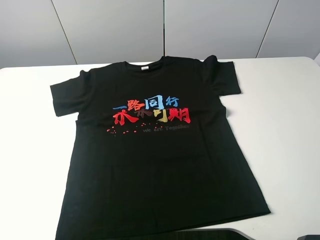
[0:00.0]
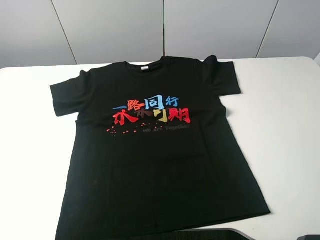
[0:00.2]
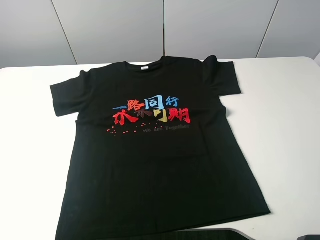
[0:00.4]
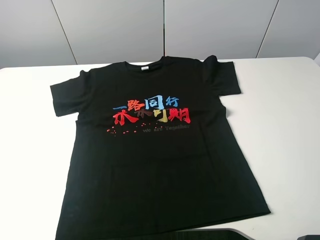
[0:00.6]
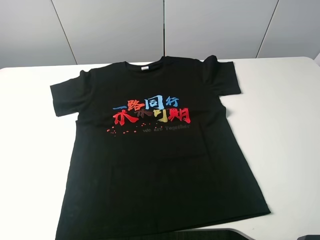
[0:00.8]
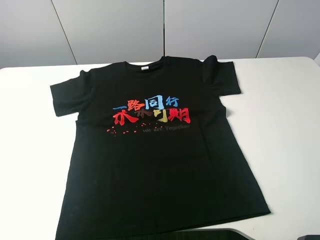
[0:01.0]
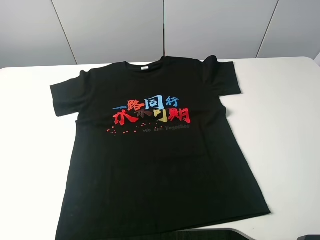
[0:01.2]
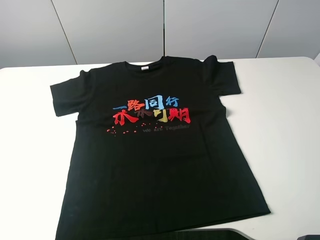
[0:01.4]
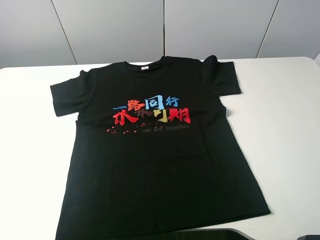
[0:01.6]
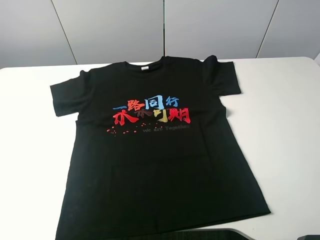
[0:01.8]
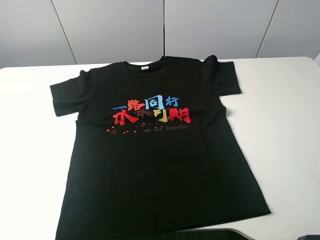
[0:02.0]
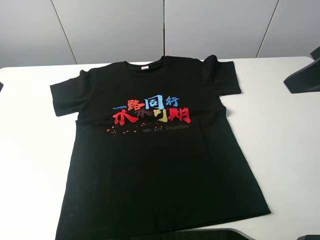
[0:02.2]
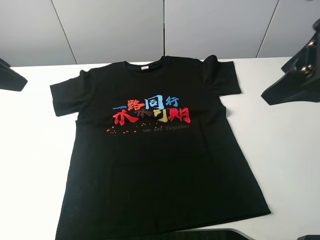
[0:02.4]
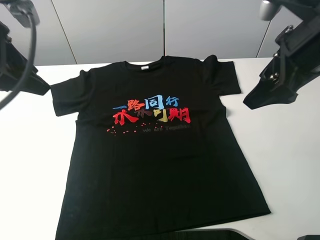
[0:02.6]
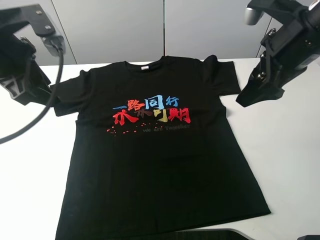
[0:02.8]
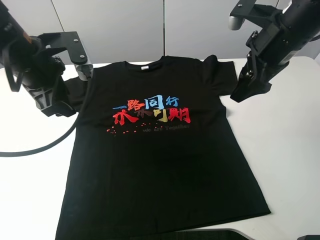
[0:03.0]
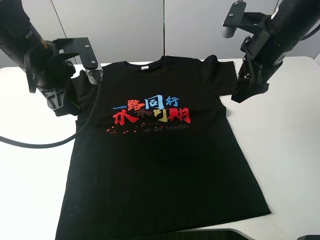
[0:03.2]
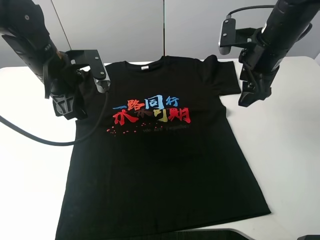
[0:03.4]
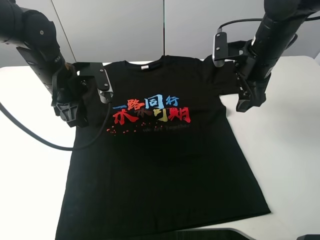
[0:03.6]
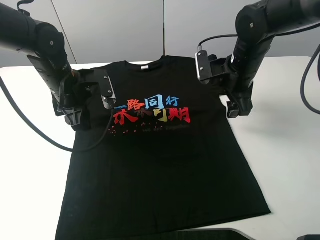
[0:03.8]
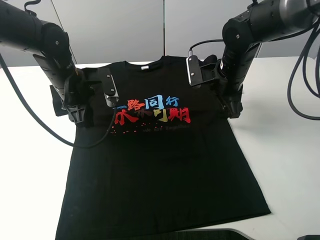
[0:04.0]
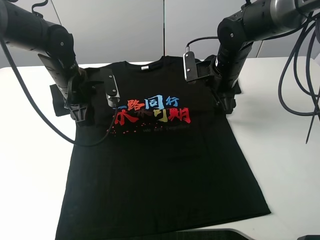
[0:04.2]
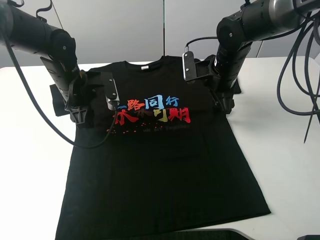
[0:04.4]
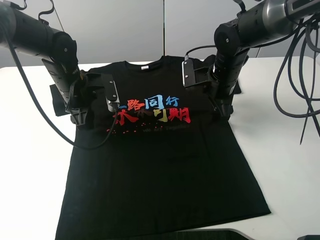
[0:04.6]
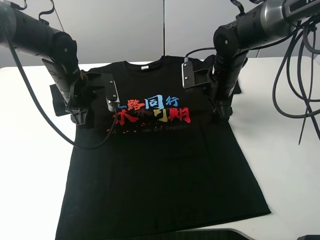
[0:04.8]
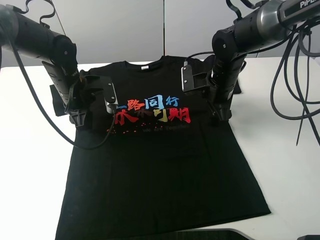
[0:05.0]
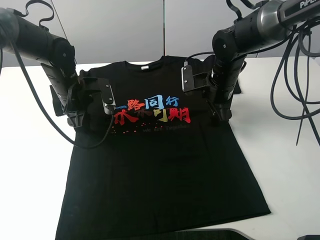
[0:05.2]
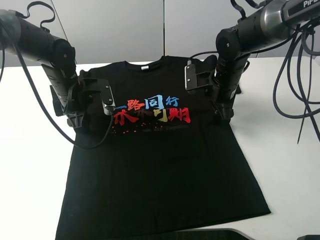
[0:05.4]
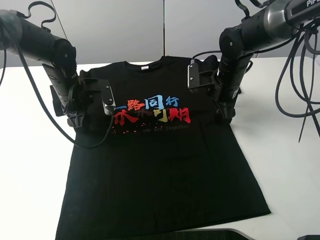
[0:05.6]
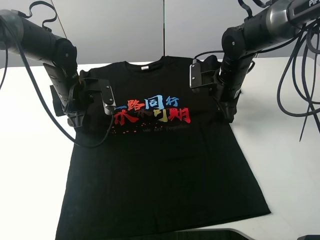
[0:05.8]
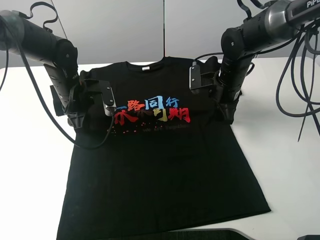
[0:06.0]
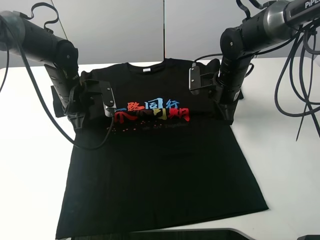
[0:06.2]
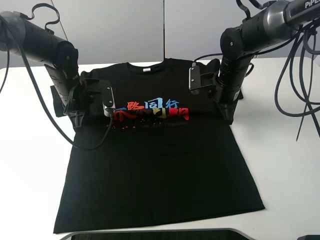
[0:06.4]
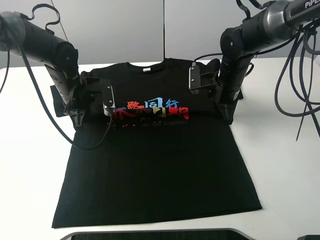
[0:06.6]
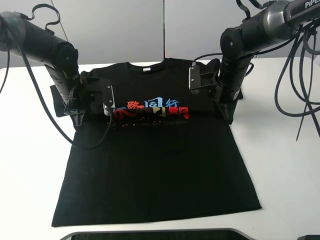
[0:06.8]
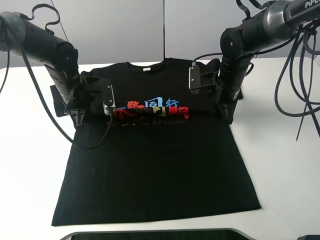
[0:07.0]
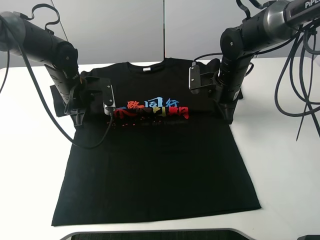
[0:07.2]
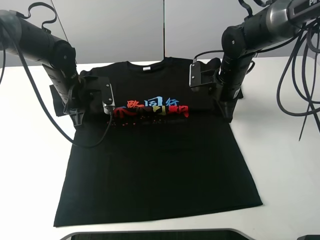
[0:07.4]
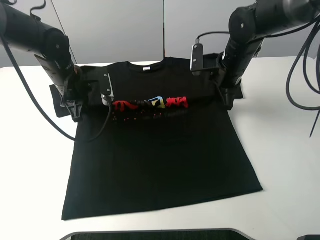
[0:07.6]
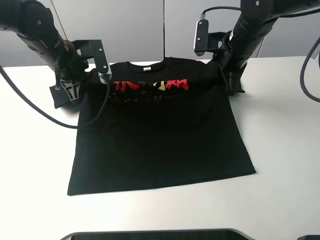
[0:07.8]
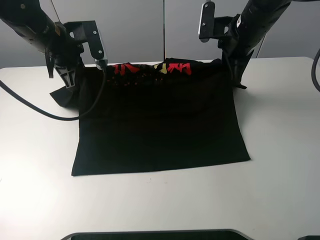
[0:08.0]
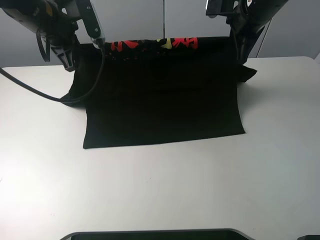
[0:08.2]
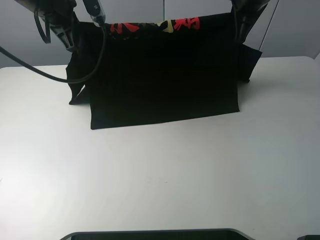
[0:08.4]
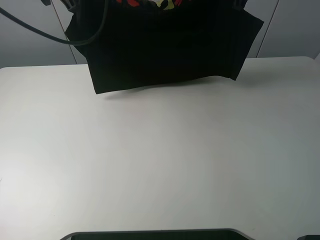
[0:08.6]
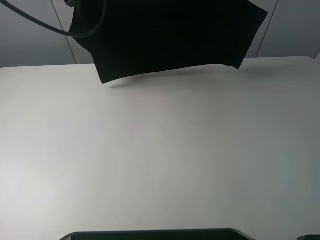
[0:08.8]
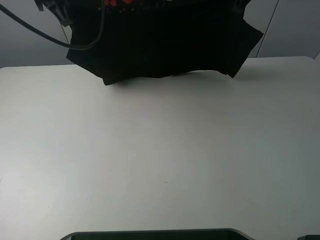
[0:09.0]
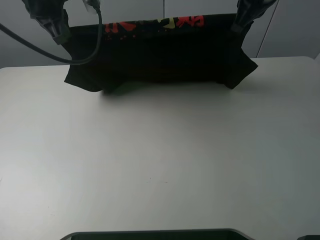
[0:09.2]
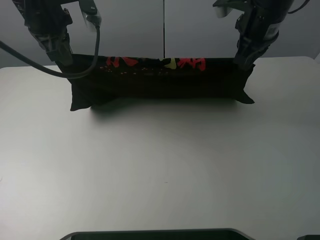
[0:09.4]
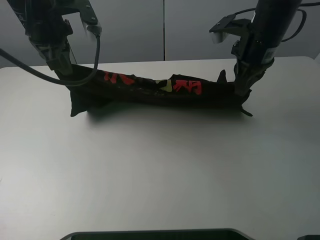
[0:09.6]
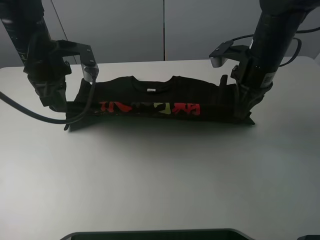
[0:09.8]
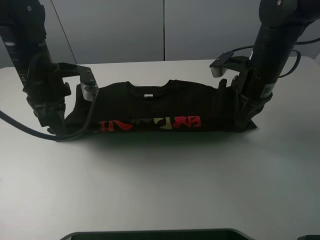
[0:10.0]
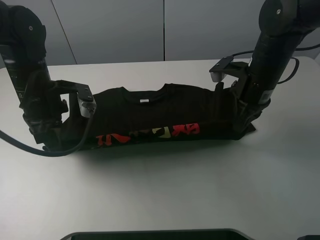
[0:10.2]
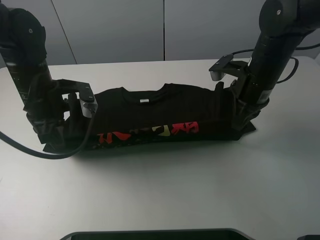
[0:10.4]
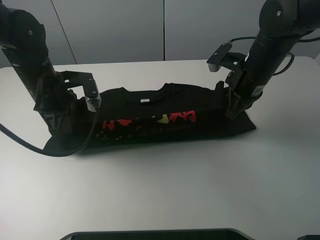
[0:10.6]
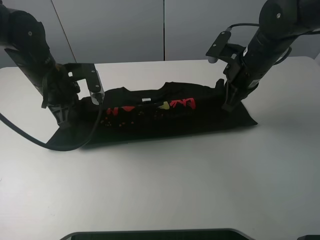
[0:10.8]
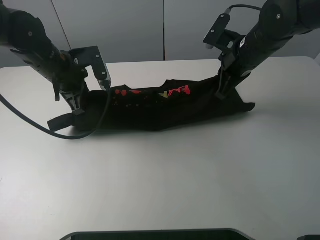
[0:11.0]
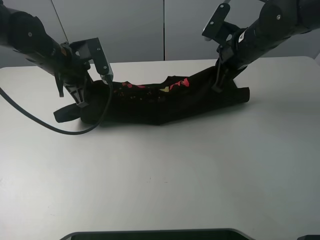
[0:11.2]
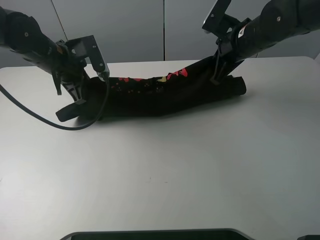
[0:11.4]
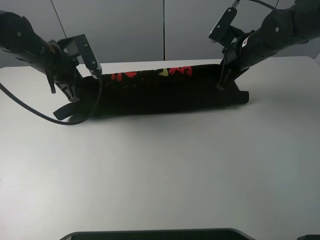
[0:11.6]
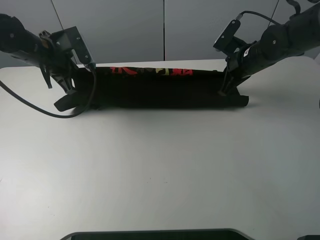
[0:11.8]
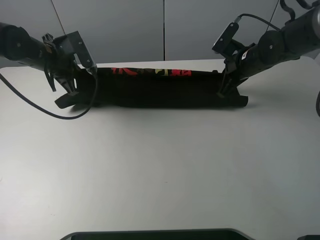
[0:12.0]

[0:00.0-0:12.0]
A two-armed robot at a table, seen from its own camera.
Task of the whole recording: fold the clothes on the table.
Step, 0.0 to 6.0 s: Lift the black T-shirt with the left gripper.
1.6 to 3.0 s: The right gripper shifts approximately 25 cm forward, while the left gripper goes roughly 30 cm forward and to the right.
3.0 to 4.4 s: The grippers both shift downward and forward by some 15 cm.
4.4 to 6.0 s: The right gripper closes up.
6.0 to 7.6 s: The left gripper closes. Meanwhile the right gripper moves upward, some 5 cm.
7.6 to 9.0 s: Both grippers travel together upward, roughly 20 cm.
9.0 to 10.4 s: The grippers both shift downward and backward by approximately 20 cm.
10.4 to 12.0 s: The grippers both shift forward by roughly 10 cm.

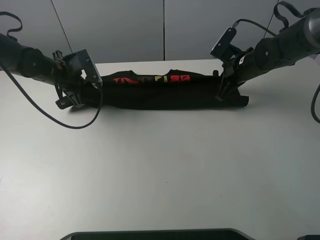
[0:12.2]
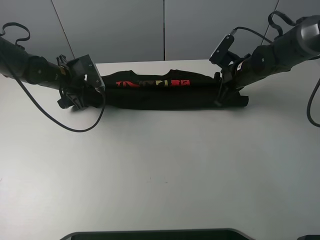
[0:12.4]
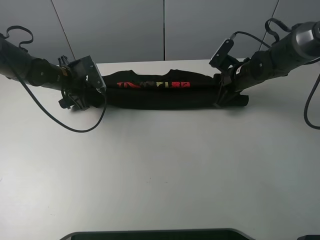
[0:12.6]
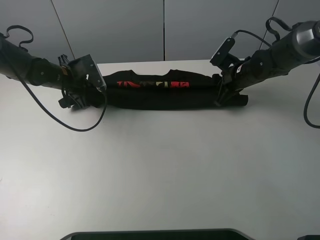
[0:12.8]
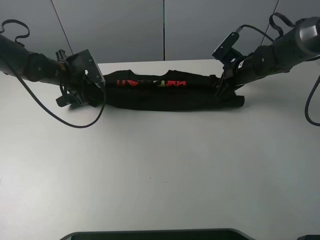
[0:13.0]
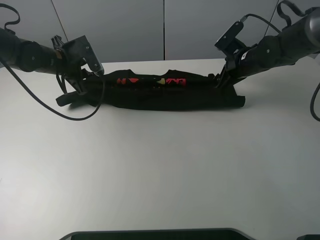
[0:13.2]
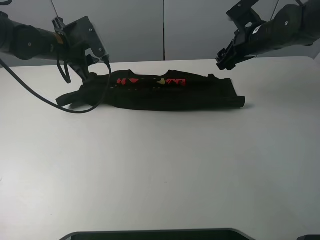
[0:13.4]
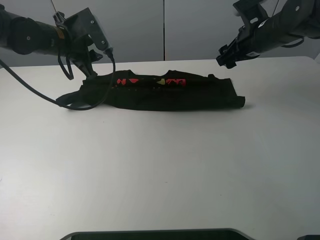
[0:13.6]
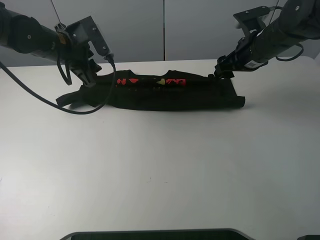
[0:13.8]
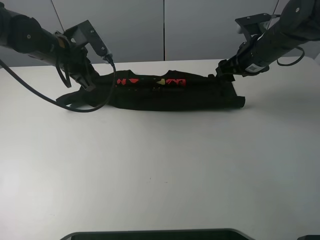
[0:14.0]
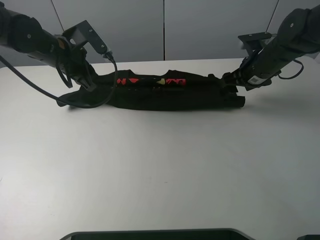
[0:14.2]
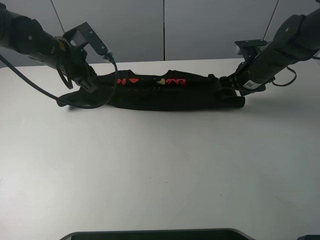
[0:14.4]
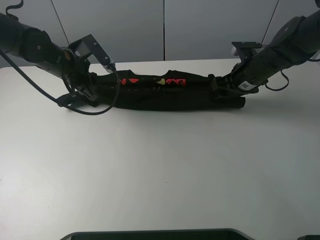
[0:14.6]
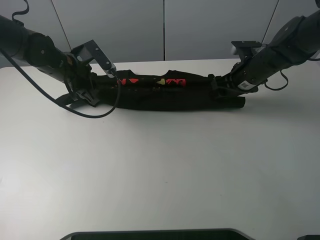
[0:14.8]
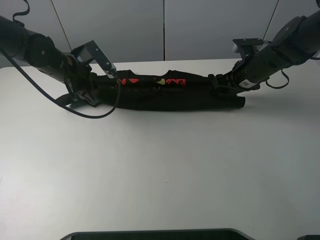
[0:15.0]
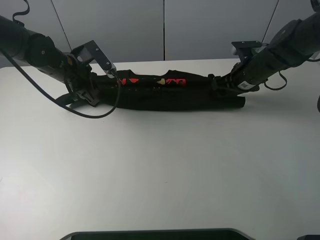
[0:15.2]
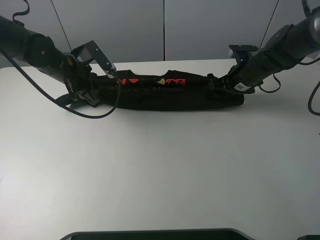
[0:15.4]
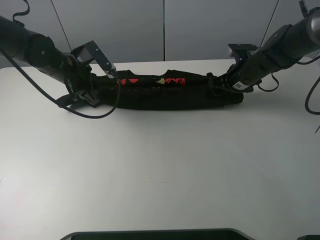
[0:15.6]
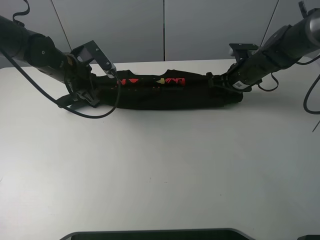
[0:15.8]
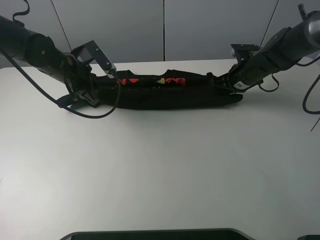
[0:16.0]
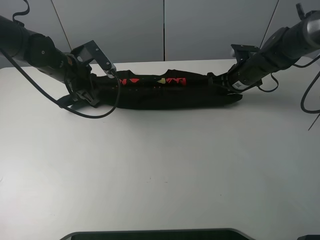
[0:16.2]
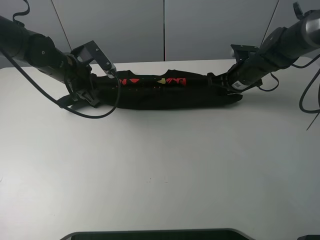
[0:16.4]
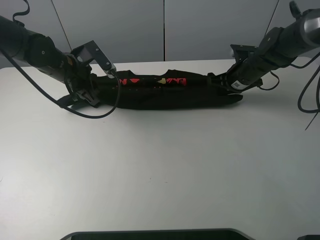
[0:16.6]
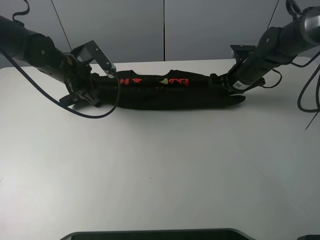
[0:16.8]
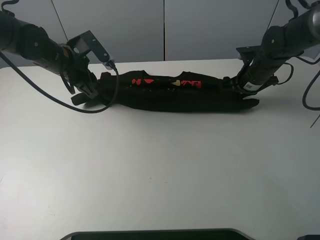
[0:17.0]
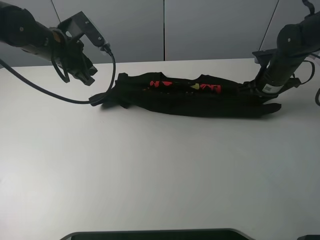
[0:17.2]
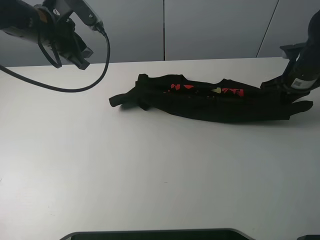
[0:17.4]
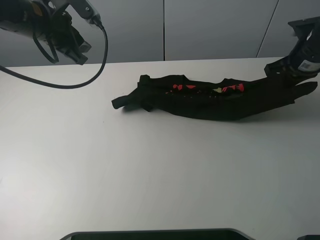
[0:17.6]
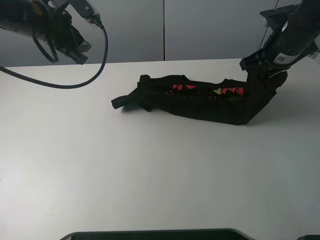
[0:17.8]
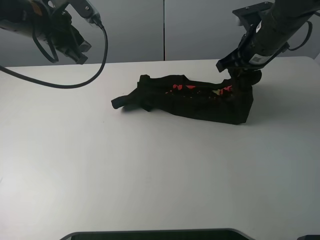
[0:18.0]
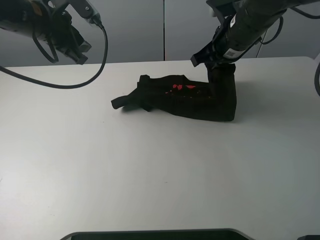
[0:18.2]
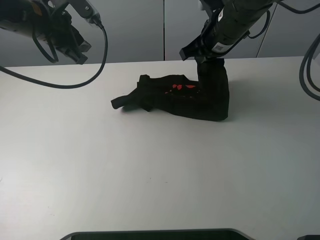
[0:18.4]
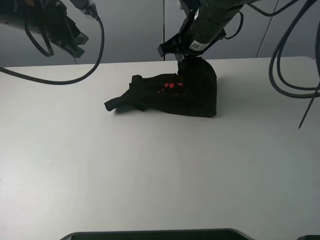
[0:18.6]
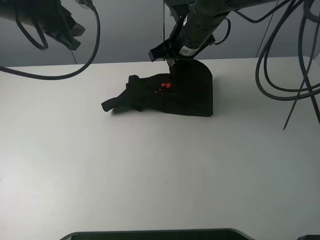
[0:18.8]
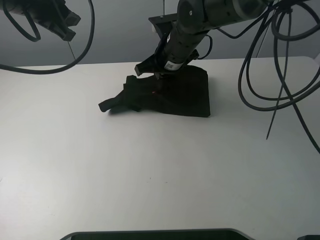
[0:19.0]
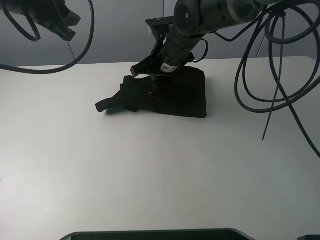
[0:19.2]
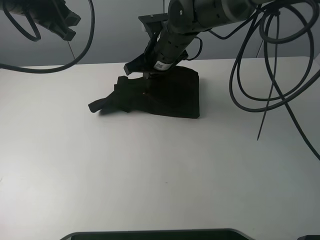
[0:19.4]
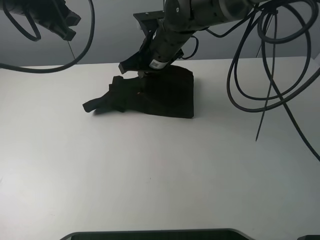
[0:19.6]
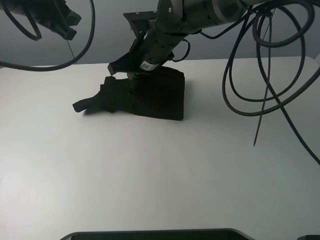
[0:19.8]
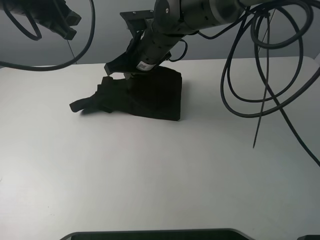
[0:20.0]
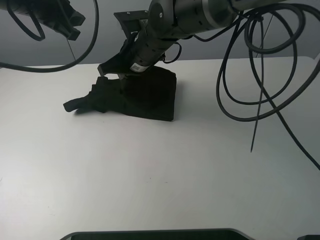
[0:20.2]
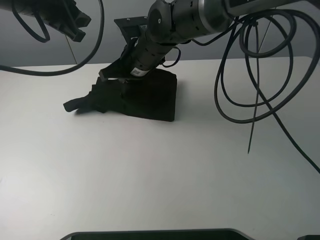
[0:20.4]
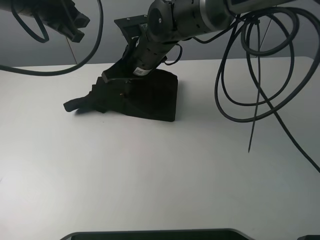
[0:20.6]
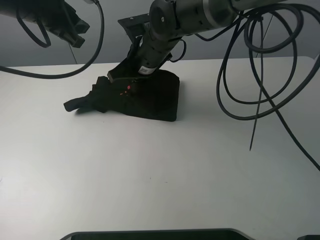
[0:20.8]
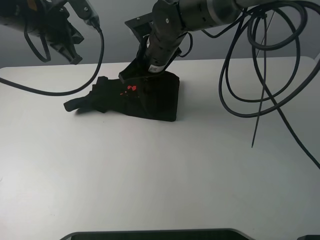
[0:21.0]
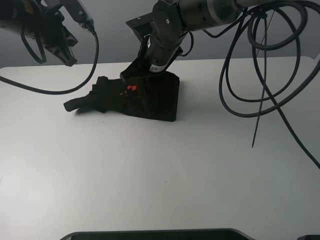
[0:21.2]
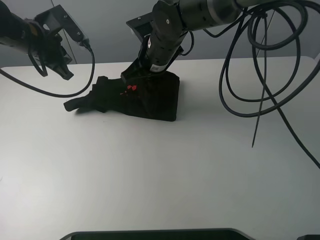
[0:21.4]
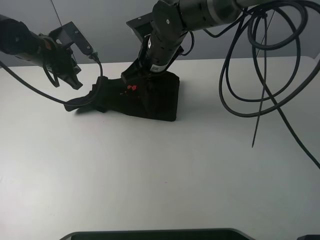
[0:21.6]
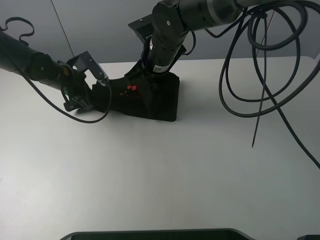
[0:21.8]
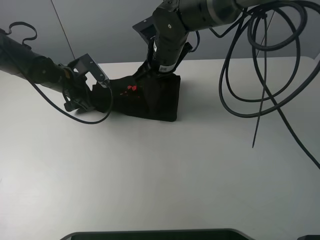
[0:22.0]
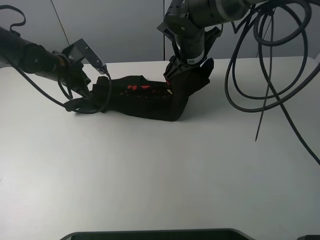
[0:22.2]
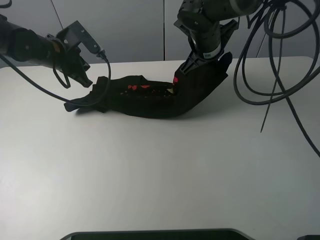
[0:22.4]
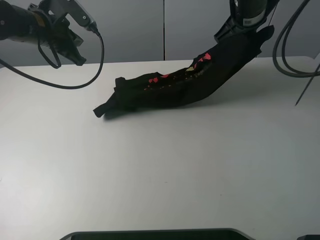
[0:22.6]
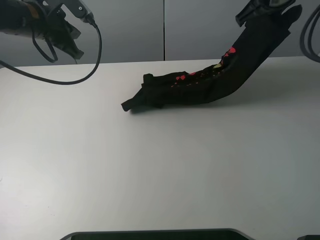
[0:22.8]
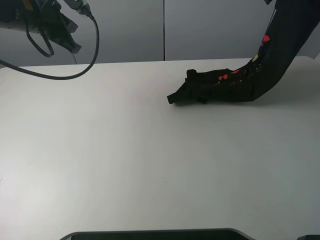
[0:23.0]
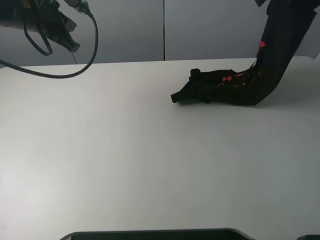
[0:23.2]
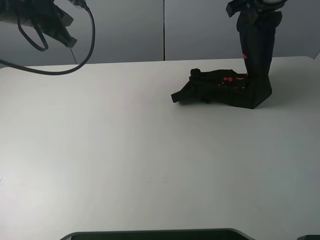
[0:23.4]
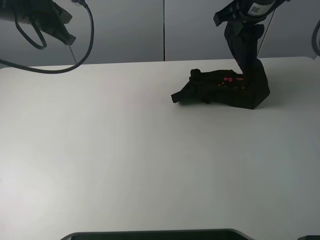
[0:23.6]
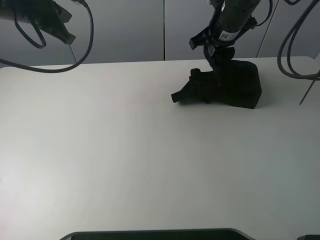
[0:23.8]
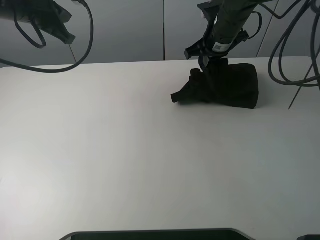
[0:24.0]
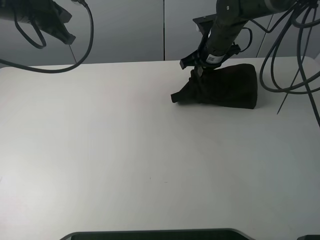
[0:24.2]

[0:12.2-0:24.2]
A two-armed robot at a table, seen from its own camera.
Task of the whole recording: fold the clothes on the table.
Step, 13.4 to 16.4 s: Grasp the black T-shirt with the right gripper.
12.2 to 13.8 s: Both grippers move upward, about 5 cm. The right gripper opens its fingers; the left gripper opens up.
13.8 to 15.2 s: The right gripper moves downward, roughly 5 cm.
15.2 to 16.6 s: The right gripper closes its fingers.
16.6 to 18.2 s: The right gripper shifts approximately 15 cm upward and to the left, while the left gripper shifts roughly 10 cm upward.
18.2 to 19.8 s: The left gripper goes roughly 5 cm upward. Meanwhile the right gripper travels to the left by about 15 cm.
19.8 to 21.2 s: The left gripper heads downward, covering roughly 5 cm, and closes.
21.2 to 22.6 s: The right gripper is displaced to the right and upward by some 20 cm. Meanwhile the left gripper goes downward and returns, roughly 15 cm each way.
22.6 to 24.2 s: The left gripper changes place by roughly 5 cm. Meanwhile the right gripper is displaced downward by roughly 10 cm.
